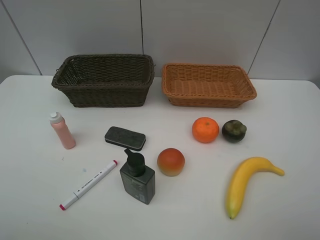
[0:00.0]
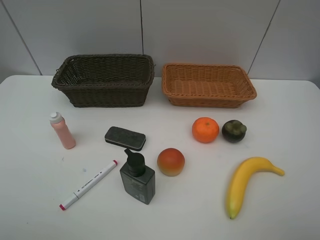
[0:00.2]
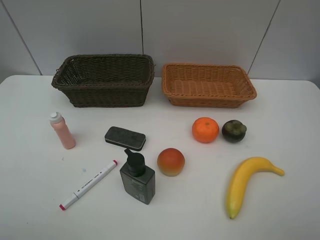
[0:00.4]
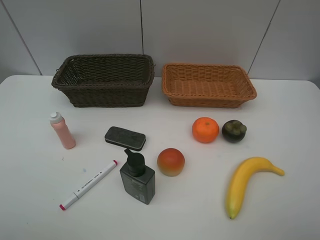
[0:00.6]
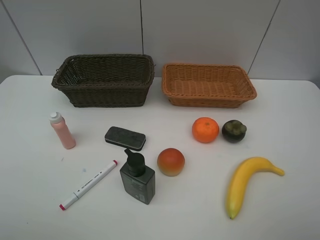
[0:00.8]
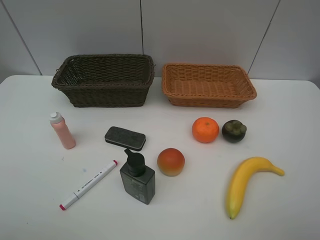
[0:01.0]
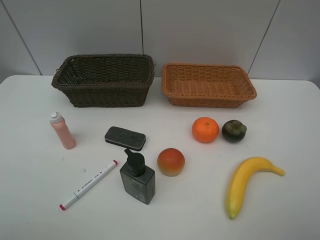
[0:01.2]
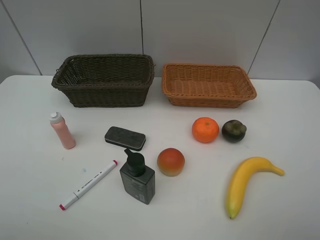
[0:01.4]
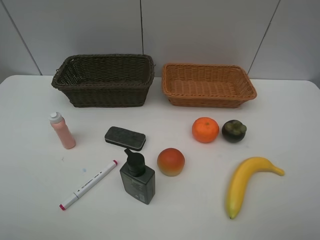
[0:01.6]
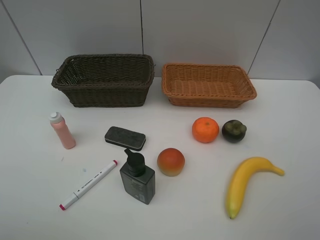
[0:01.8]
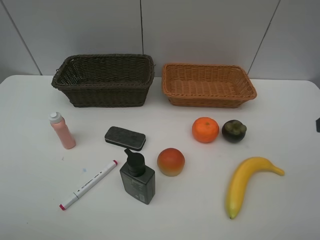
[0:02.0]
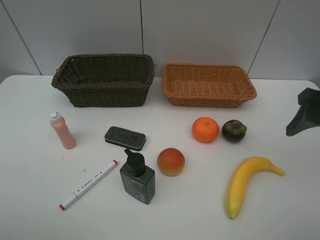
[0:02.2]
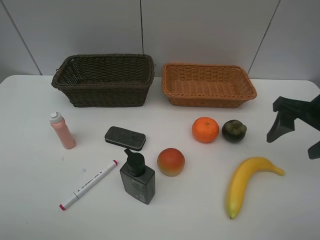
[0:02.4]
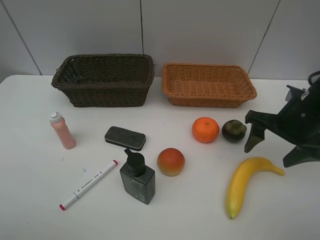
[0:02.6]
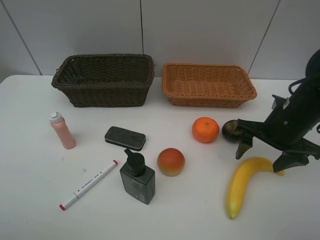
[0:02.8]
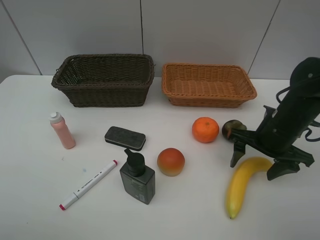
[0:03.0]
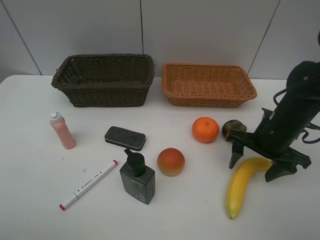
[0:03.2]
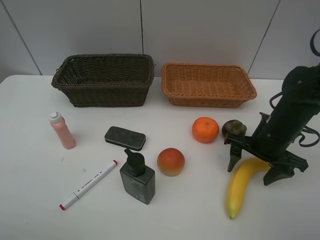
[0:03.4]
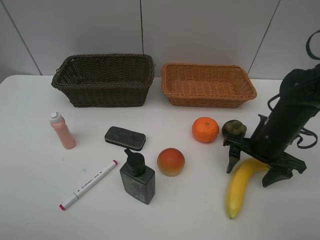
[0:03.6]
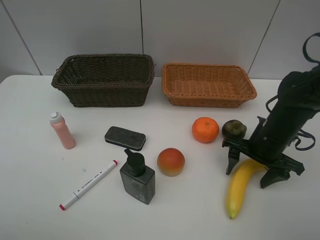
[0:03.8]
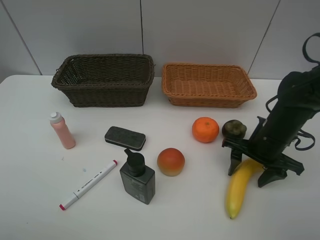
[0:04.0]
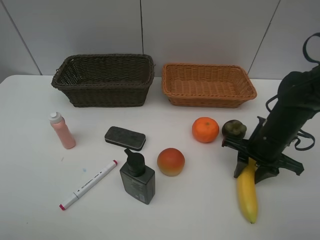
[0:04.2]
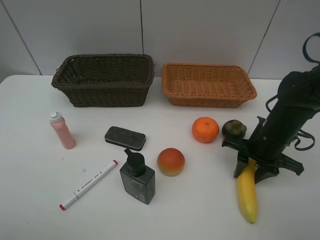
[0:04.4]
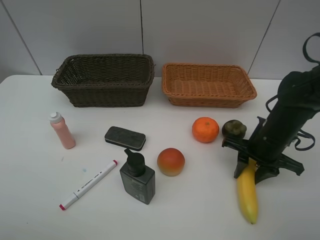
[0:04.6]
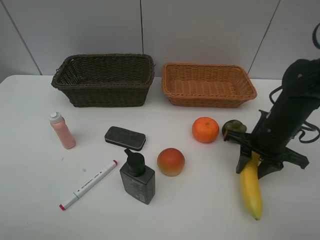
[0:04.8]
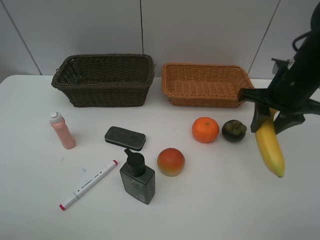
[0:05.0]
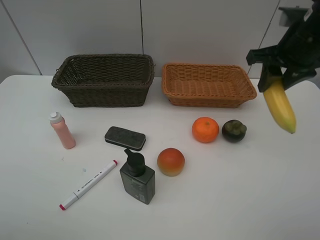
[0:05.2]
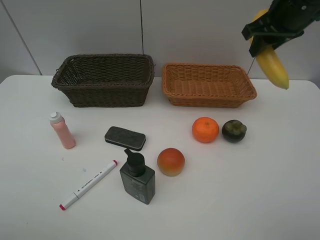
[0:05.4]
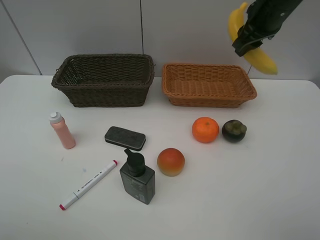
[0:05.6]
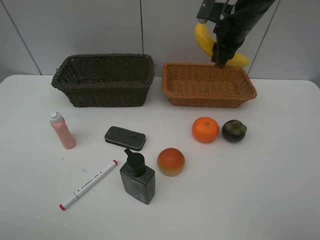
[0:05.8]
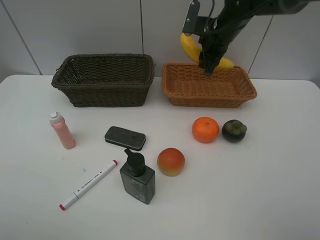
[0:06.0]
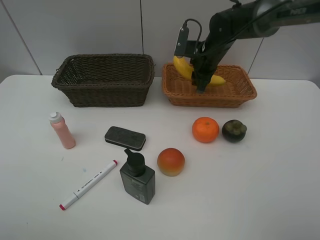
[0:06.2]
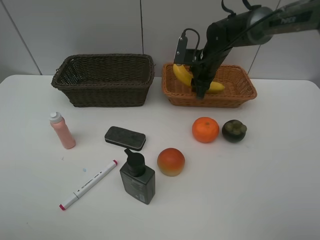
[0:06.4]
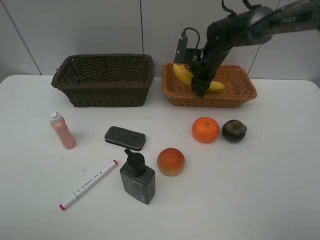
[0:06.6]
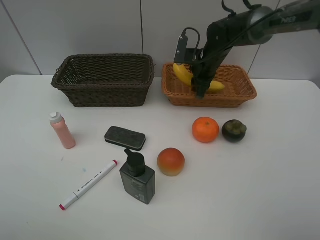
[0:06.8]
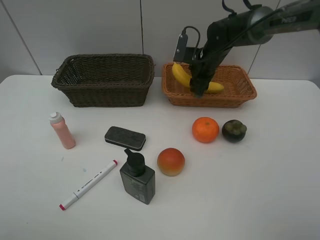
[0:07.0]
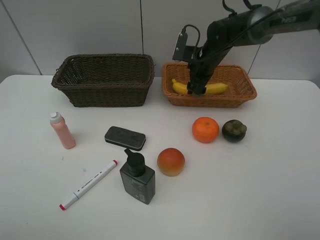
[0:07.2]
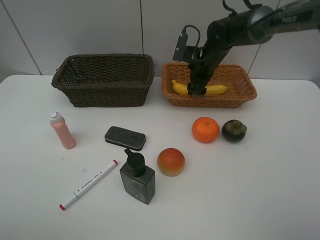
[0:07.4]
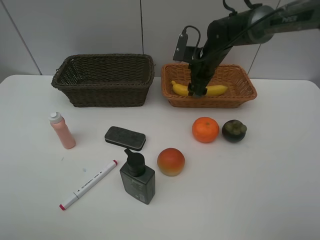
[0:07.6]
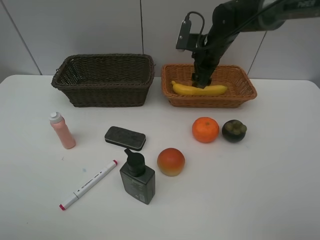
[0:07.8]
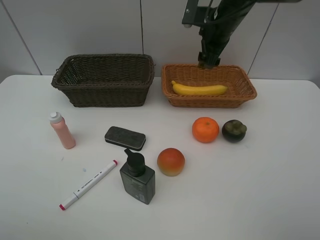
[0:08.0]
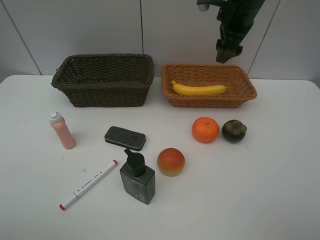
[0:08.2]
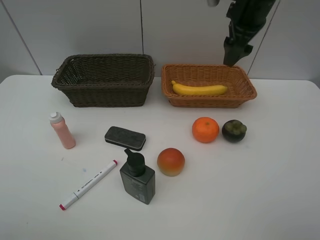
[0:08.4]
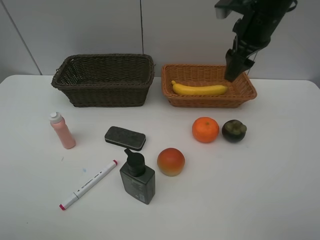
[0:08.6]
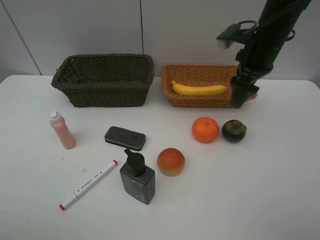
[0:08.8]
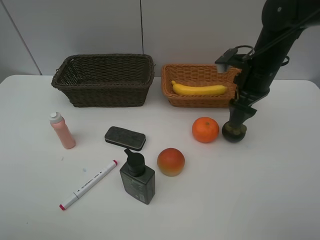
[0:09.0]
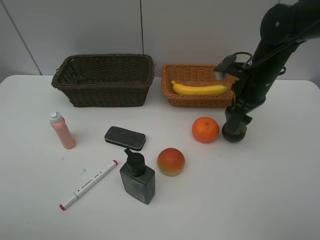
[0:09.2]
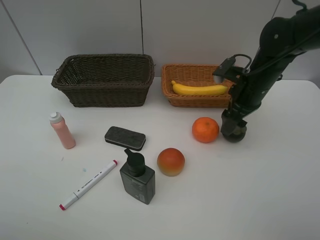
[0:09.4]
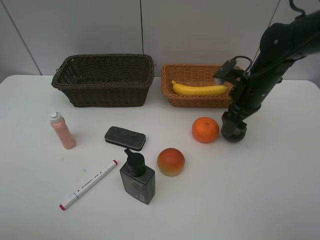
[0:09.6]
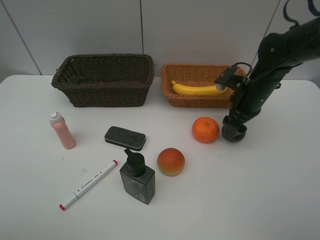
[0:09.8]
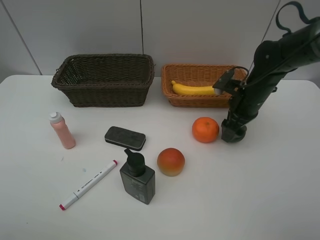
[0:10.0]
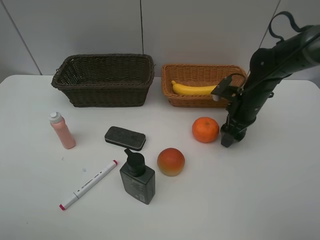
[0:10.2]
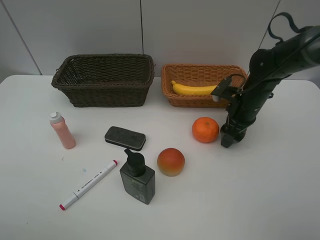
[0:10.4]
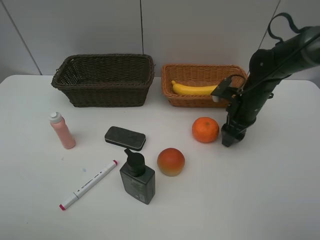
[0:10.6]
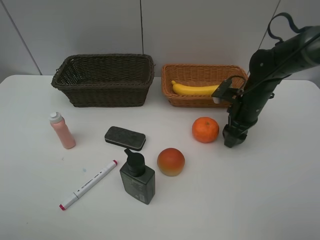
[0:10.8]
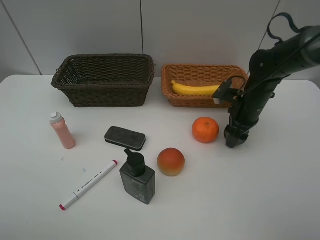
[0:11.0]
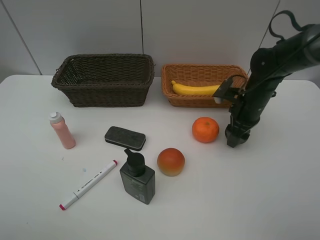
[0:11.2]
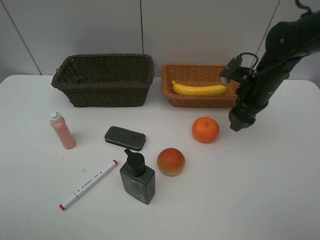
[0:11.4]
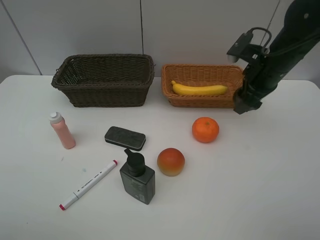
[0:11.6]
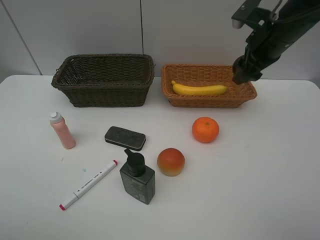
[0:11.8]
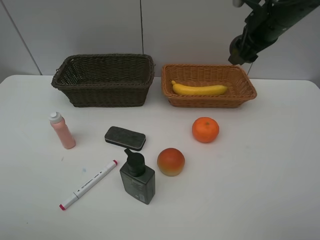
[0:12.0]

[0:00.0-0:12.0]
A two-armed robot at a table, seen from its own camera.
Task of the whole recording: Place multiple objects separately in different baskets.
Step, 0:00.0 to 0:04.8: Pick up banana with right gripper.
Step, 0:05.0 to 0:07.8: Place the banana in the light basket with right gripper.
Step, 0:08.0 to 0:11.2: Pick up the mangosteen with right gripper.
0:01.6 to 0:03.0: The right gripper heads forward and downward, covering approximately 25 cm.
0:03.0 to 0:04.4: The right gripper closes up.
0:04.4 to 0:06.0: The right gripper moves forward, upward and to the left, about 25 cm.
0:06.0 to 0:07.6: The right gripper moves downward, some 5 cm, and opens.
0:07.6 to 0:09.0: The right gripper is displaced backward and to the right by roughly 15 cm, and goes upward and returns, about 15 cm each way.
0:09.0 to 0:10.4: The right gripper travels downward by roughly 10 cm.
0:10.4 to 0:12.0: The right gripper shifts roughly 20 cm upward, and closes up.

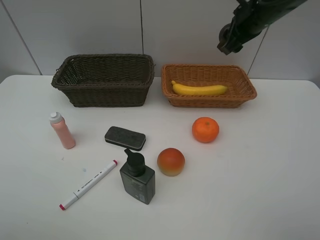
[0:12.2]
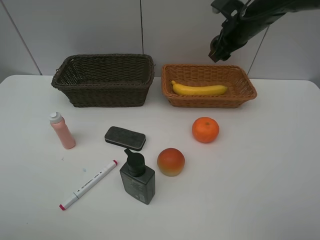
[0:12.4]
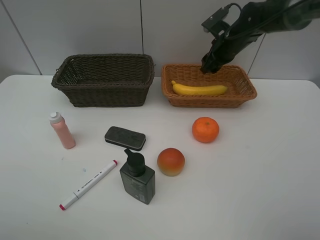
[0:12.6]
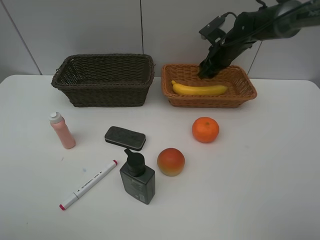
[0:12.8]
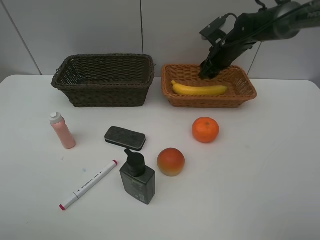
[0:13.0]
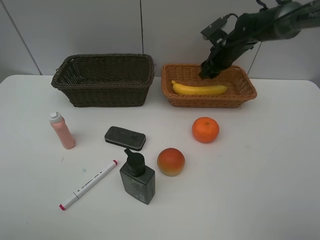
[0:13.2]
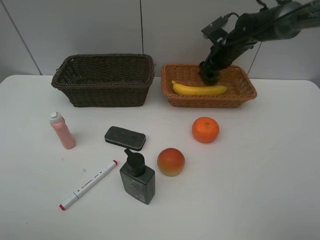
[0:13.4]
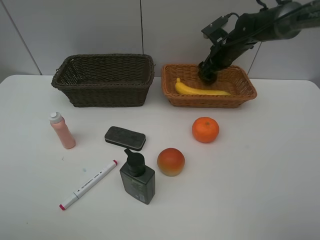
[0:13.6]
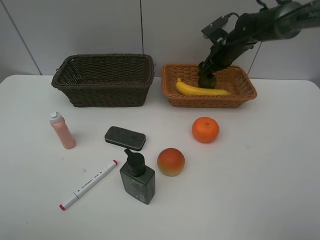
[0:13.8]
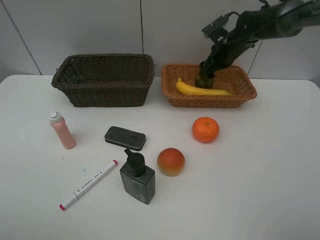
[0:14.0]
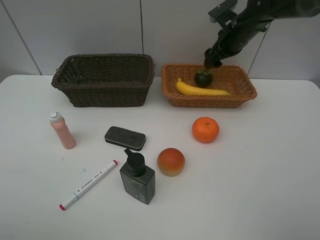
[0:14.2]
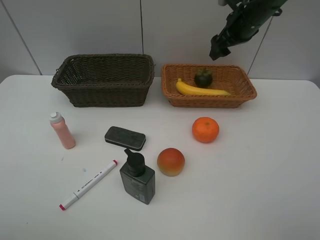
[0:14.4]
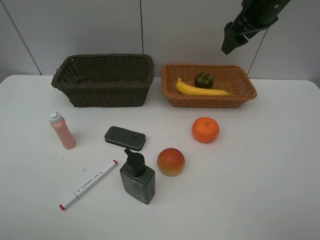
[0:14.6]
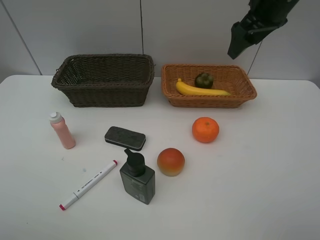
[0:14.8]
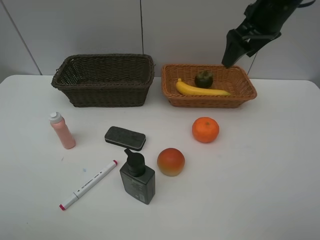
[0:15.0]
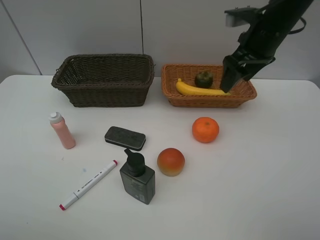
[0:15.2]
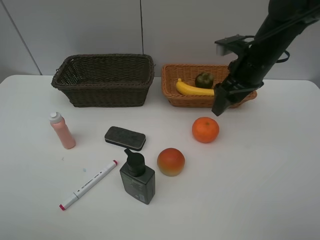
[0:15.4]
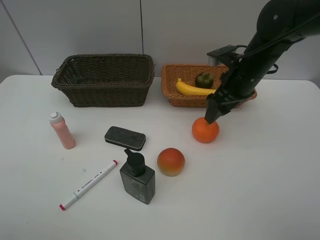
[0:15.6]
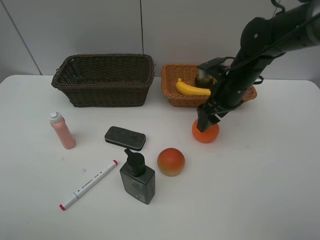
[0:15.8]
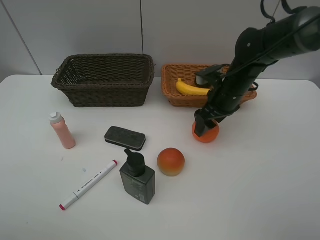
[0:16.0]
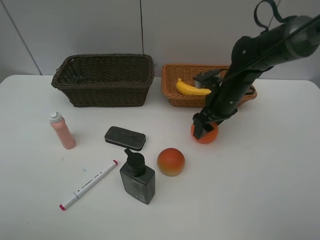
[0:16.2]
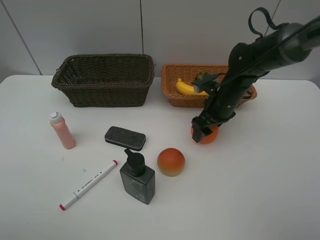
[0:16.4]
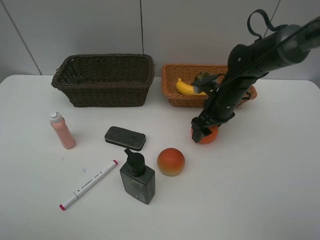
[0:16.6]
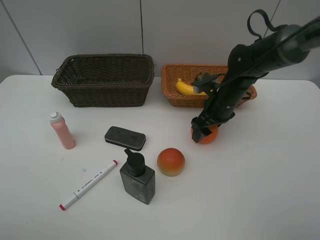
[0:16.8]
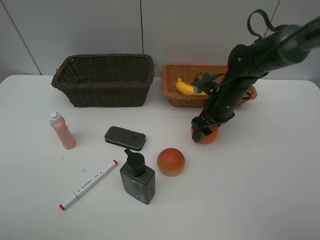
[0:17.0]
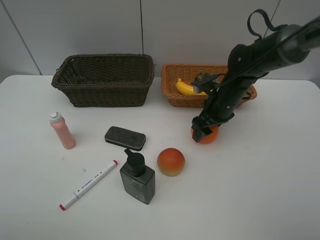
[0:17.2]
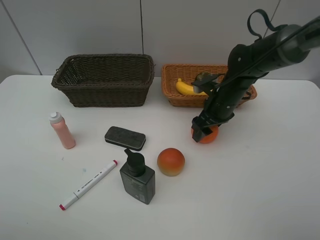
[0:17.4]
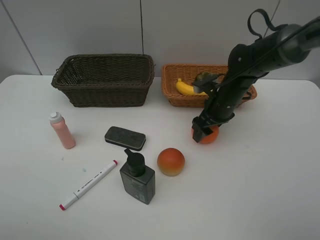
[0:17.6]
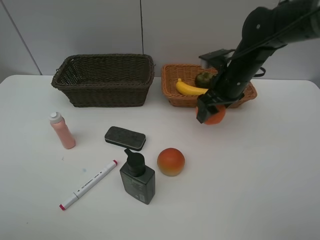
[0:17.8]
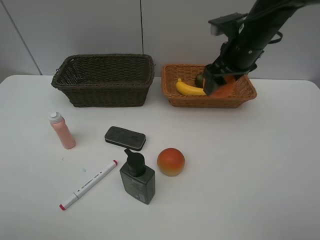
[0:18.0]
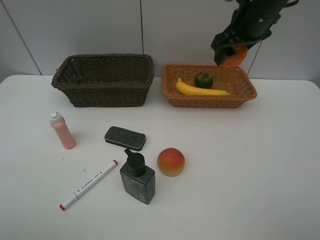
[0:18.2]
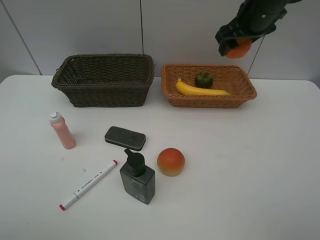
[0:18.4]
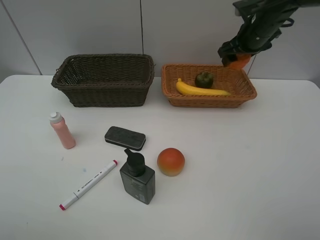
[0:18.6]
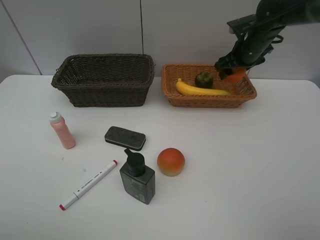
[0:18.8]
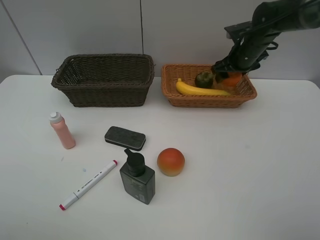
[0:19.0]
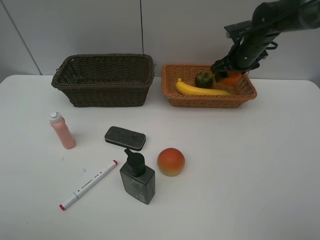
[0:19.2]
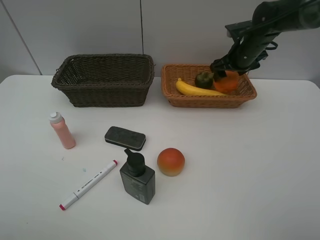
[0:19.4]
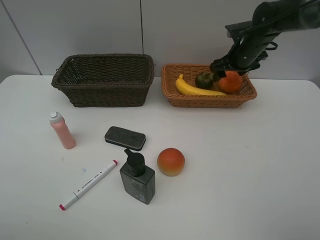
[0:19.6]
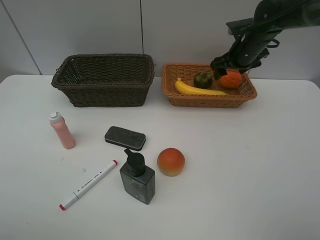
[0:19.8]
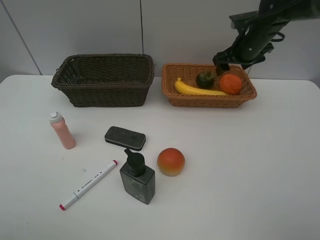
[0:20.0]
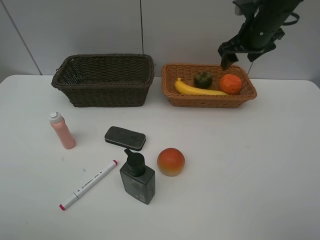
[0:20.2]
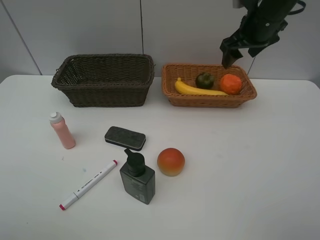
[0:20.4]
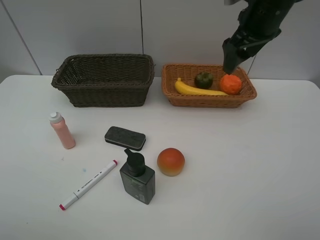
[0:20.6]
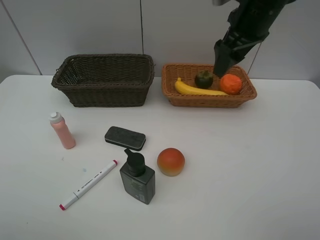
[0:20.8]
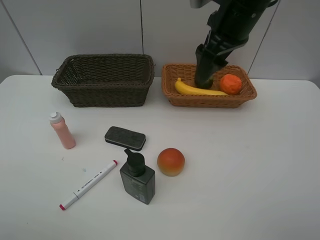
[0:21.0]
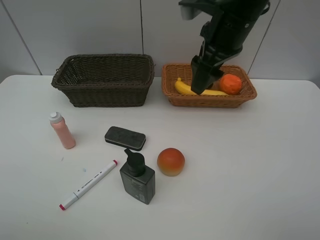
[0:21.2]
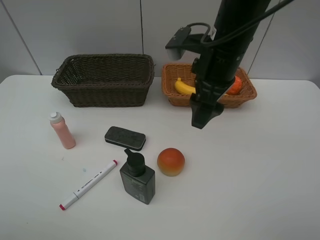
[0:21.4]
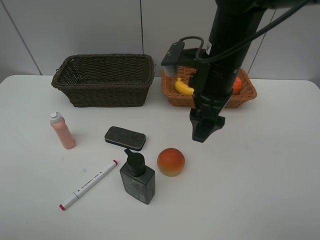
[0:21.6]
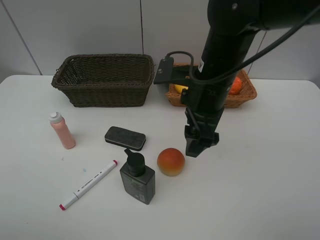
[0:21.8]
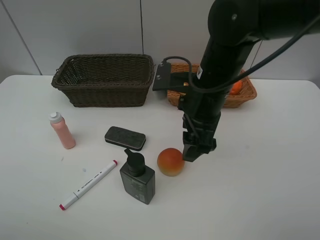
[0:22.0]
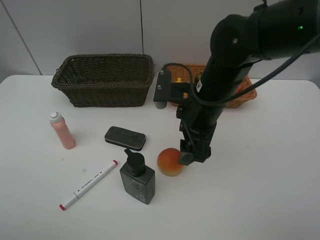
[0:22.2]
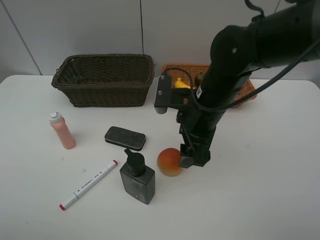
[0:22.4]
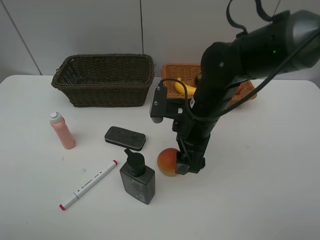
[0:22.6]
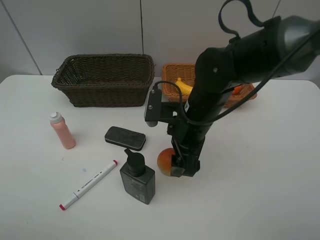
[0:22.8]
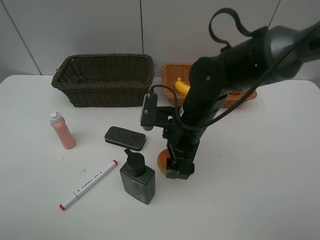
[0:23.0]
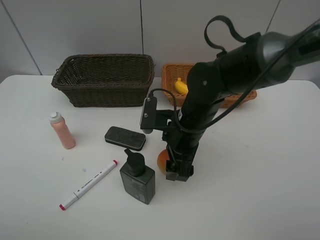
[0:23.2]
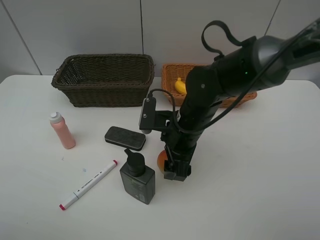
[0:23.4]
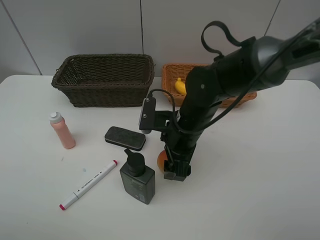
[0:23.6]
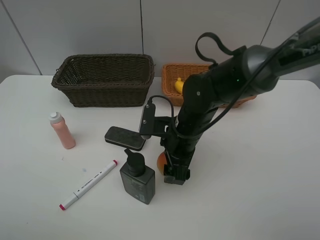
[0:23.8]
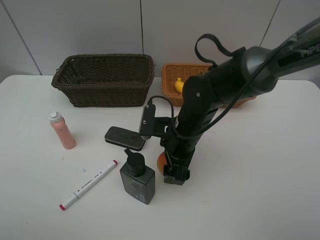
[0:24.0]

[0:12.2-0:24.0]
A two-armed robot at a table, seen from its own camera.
Task of the whole recording: Place multiple objects separately in different baskets.
Step, 0:12.2 to 0:13.6: Place the mangosteen in the light basket with right gripper.
Step, 0:13.8 to 0:17.6: Pick up the orange with right gripper.
Step, 0:17.8 to 0:19.8: Place the orange in the light basket with right gripper.
0:12.2 to 0:13.6: The right gripper travels downward and forward by approximately 15 cm, and opens up.
0:13.6 to 0:15.2: The right gripper is displaced backward and upward by roughly 15 cm.
0:15.2 to 0:16.6: The right gripper moves downward, about 15 cm.
0:16.6 to 0:18.2: The right gripper heads upward, covering about 20 cm.
0:18.2 to 0:19.6: The right gripper is displaced downward and forward by some 15 cm.
0:19.6 to 0:21.0: The right gripper goes about 20 cm backward, upward and to the left.
0:21.0 to 0:22.6: The right gripper shifts about 15 cm downward and backward.
0:22.6 to 0:24.0: The right gripper shifts by approximately 5 cm.
